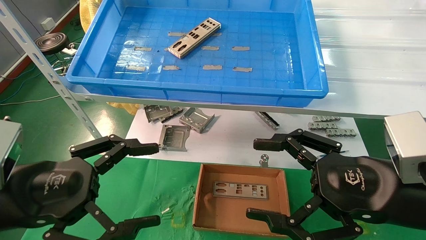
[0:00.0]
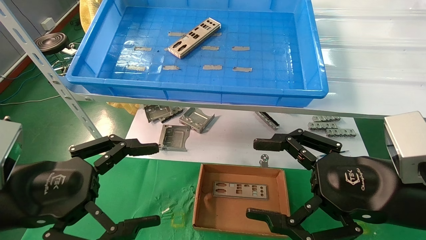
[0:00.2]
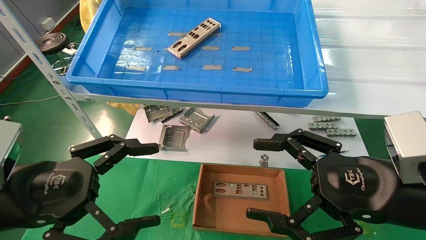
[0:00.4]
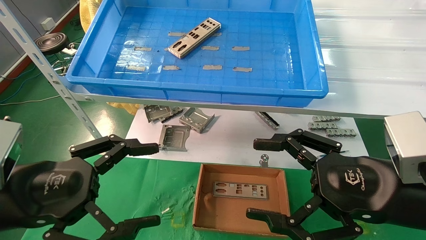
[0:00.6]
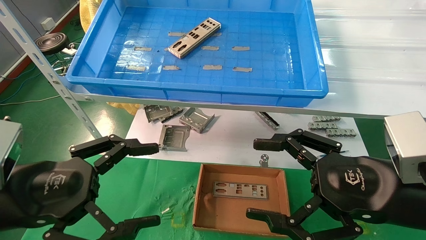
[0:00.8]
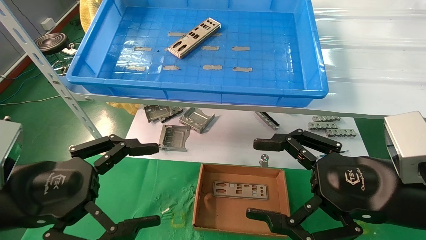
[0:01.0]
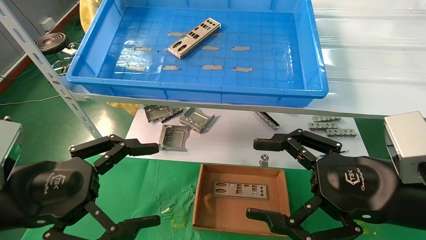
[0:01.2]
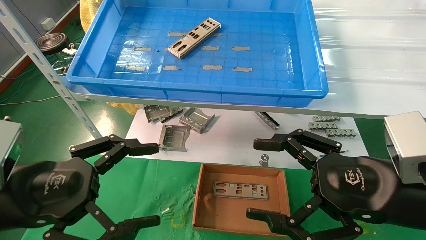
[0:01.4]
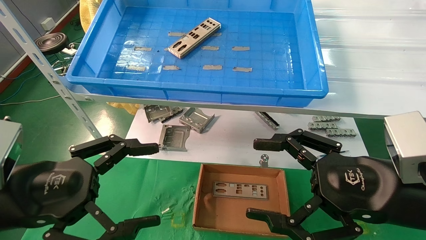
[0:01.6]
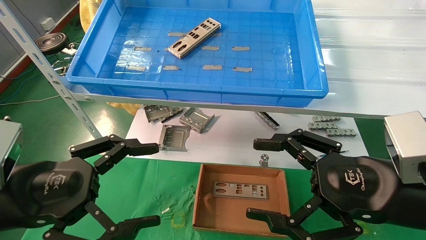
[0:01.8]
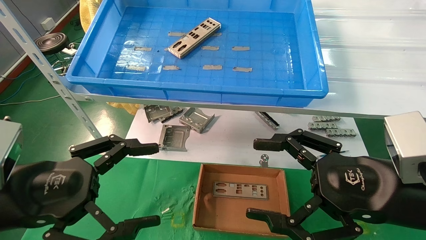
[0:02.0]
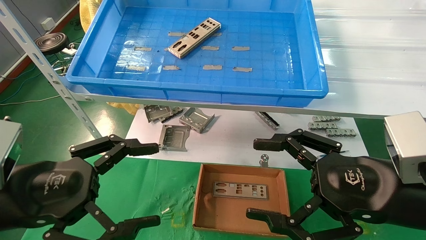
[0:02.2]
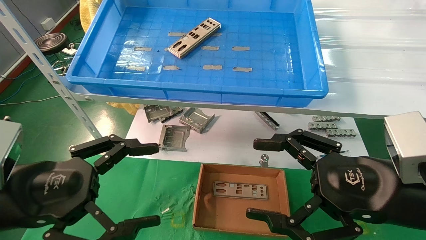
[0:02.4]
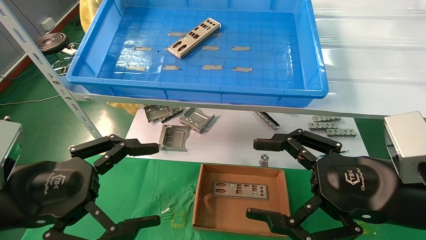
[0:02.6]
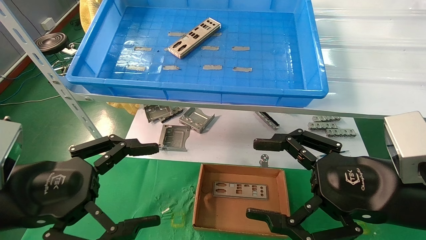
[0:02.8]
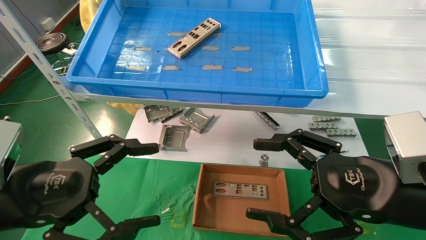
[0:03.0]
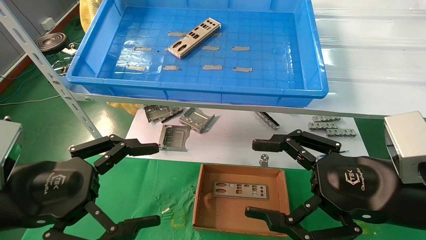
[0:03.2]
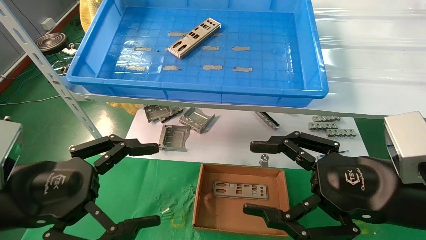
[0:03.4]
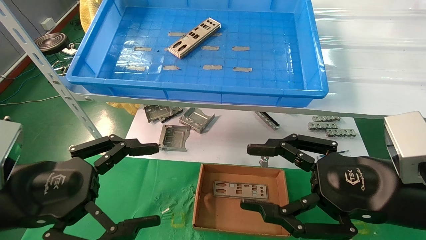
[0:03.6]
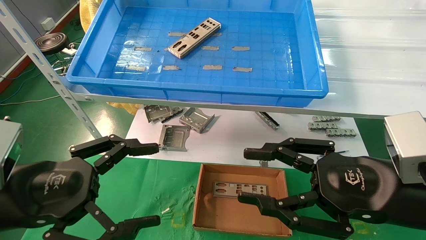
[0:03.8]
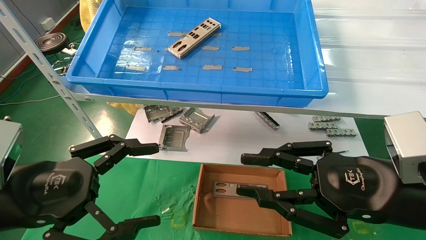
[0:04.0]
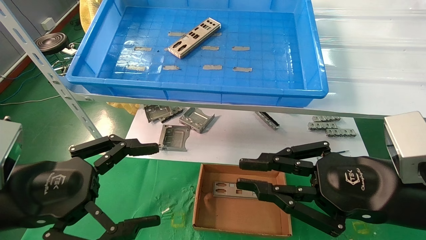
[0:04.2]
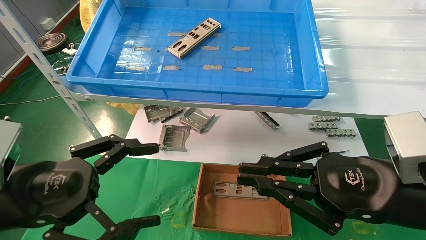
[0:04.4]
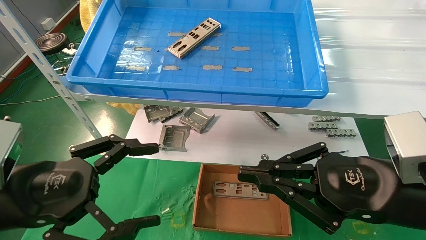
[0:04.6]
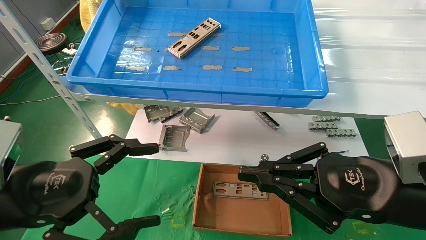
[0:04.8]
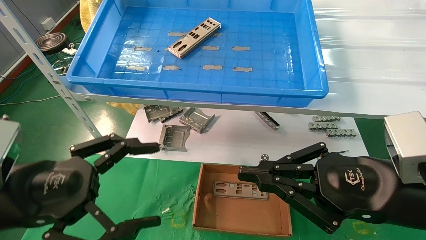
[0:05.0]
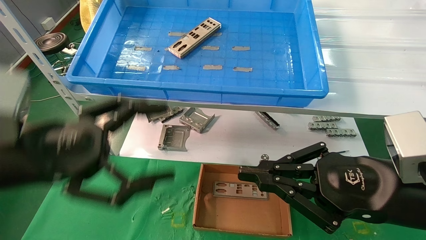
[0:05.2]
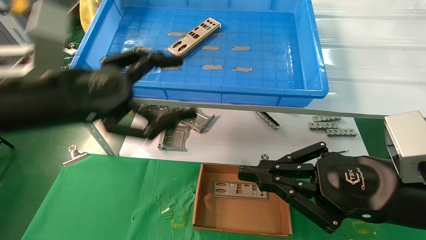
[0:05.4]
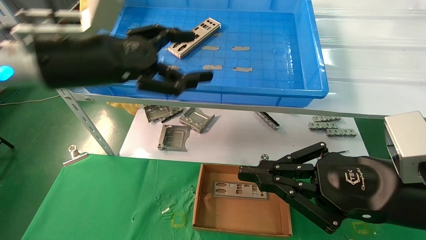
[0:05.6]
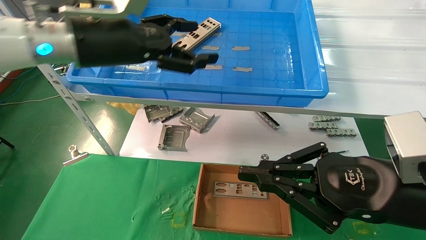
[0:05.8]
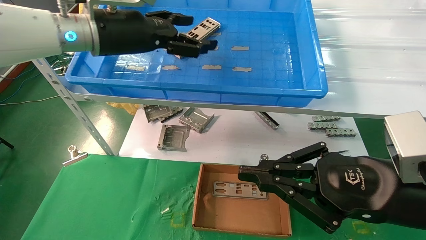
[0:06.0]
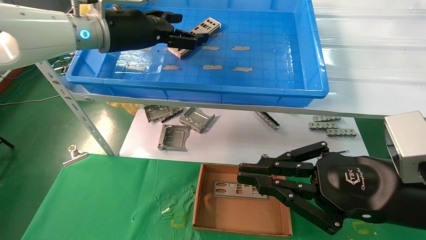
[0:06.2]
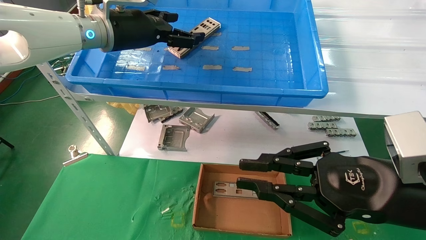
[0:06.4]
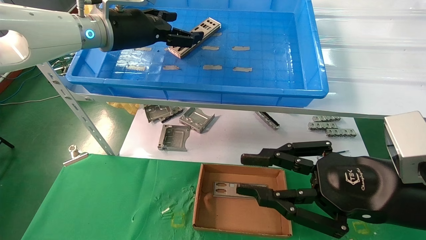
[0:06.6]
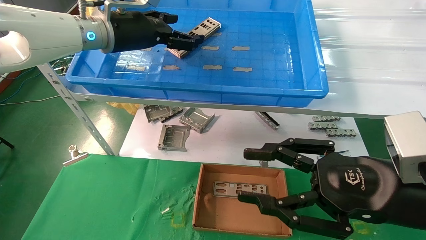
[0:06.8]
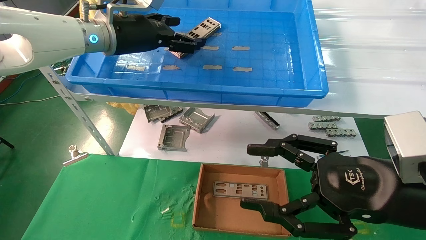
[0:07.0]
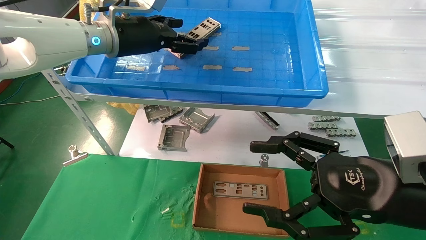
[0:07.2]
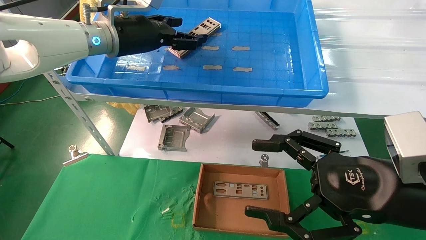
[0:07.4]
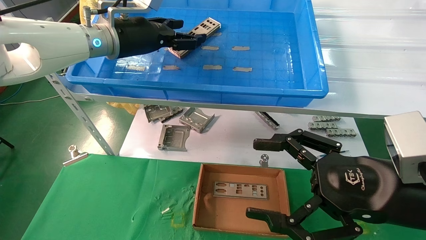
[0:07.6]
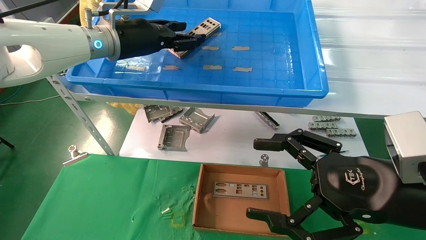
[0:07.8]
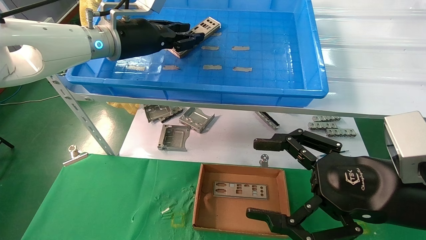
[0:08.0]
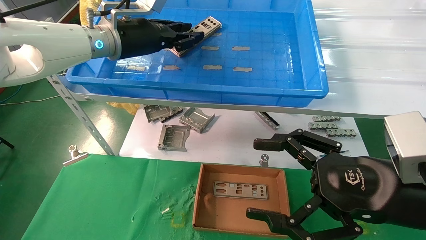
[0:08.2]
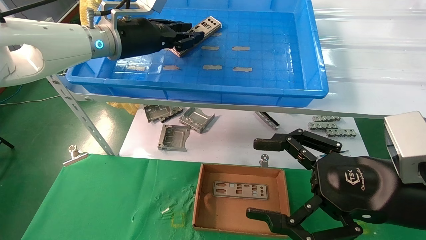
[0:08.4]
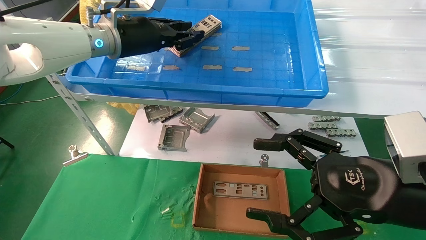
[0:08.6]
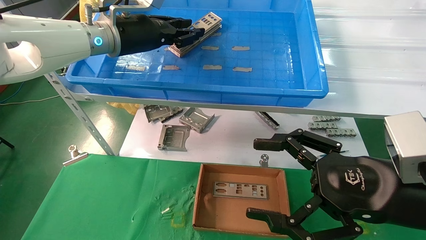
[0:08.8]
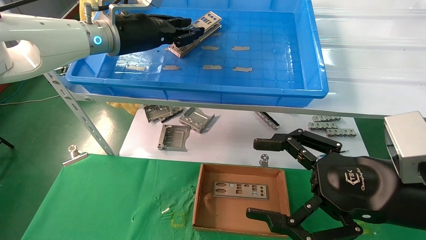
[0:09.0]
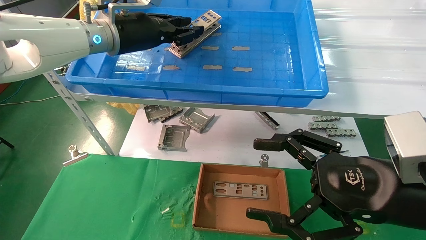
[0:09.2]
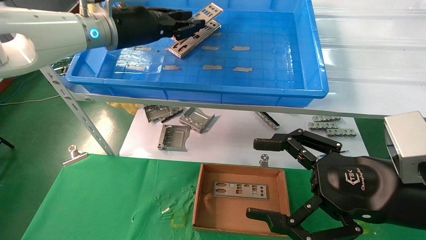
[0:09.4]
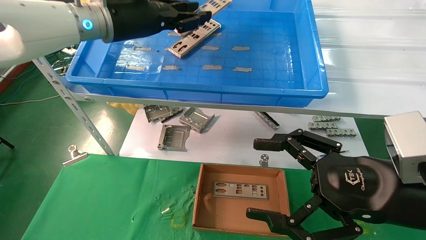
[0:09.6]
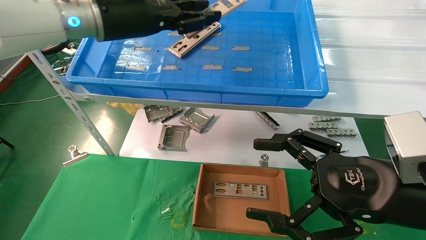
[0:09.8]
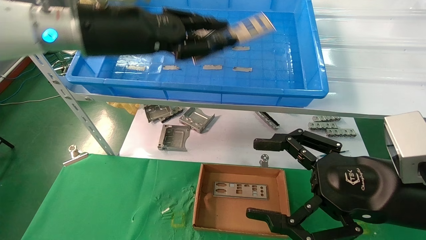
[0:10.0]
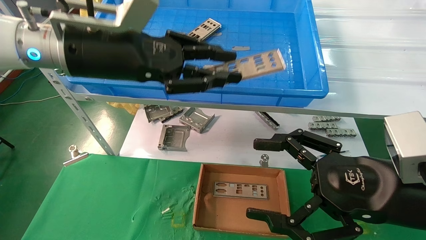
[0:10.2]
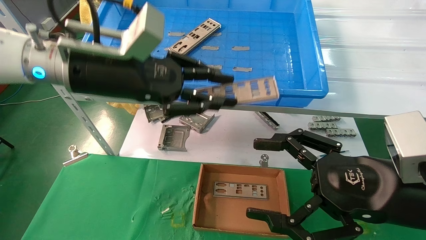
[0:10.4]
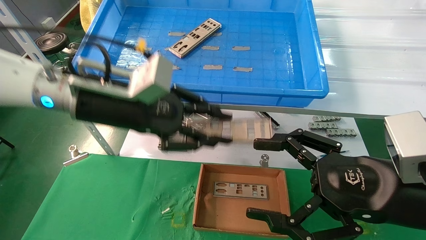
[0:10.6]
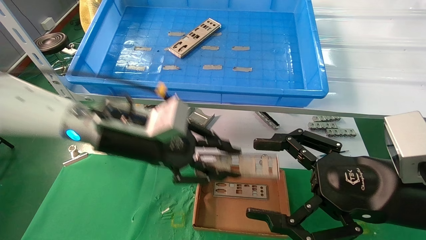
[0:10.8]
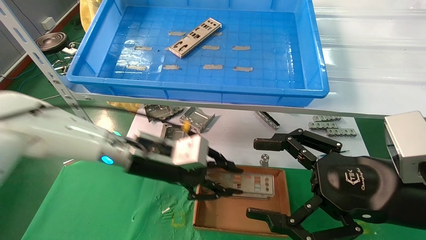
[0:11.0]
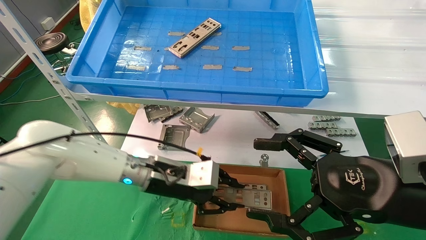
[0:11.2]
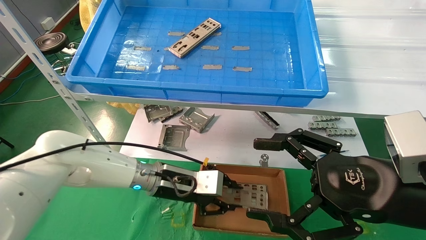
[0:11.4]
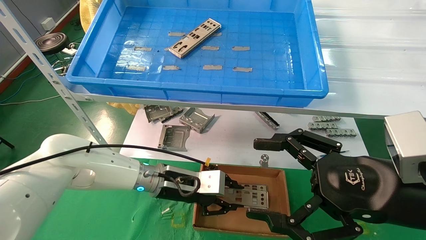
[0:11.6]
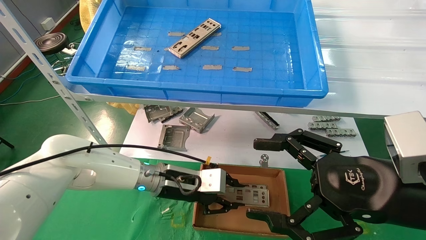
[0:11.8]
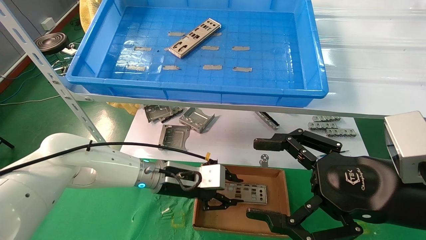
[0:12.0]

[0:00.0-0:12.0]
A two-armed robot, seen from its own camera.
Task of the whole recording: pick up the parts on the tray and put them in the cardboard box.
Step, 0:05.4 to 0:08.0: Pick up the IO bracket from the container box.
0:00.0 to 0:03.0: Both grippers stay put.
0:03.0 to 0:04.4: The right gripper closes up.
0:04.4 to 0:06.0: The left gripper is displaced forward, upward and to the right by approximately 30 cm.
0:06.0 to 0:07.6: The right gripper opens its fingers.
0:07.6 to 0:09.0: The left gripper closes.
0:09.0 to 0:10.4: The left gripper is displaced backward and downward by about 10 cm.
0:10.4 to 0:12.0: The left gripper goes some 25 cm downward.

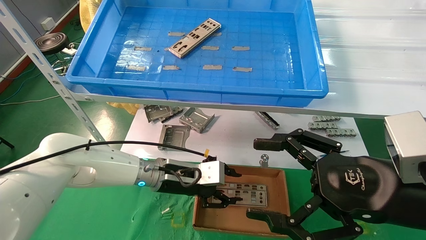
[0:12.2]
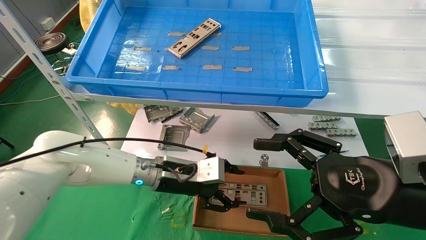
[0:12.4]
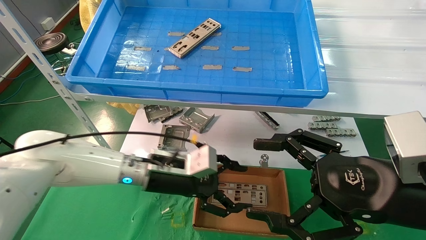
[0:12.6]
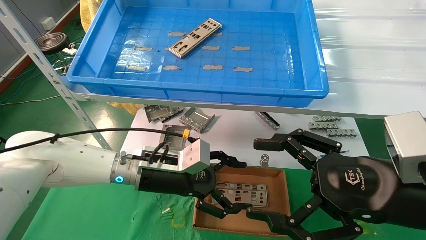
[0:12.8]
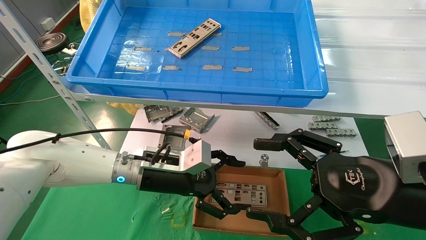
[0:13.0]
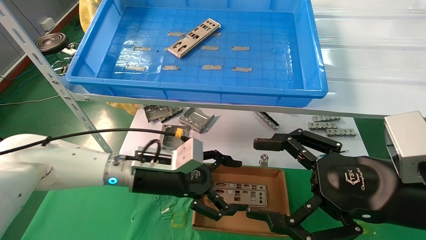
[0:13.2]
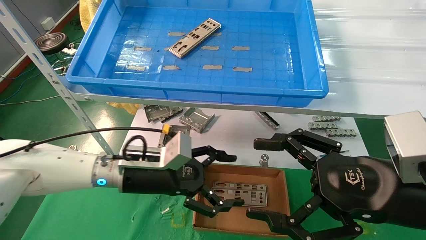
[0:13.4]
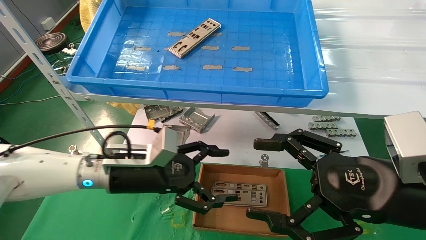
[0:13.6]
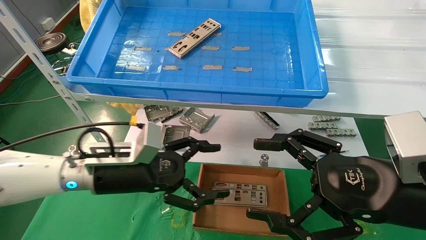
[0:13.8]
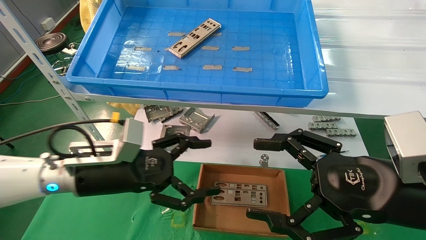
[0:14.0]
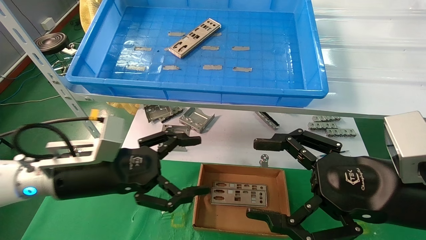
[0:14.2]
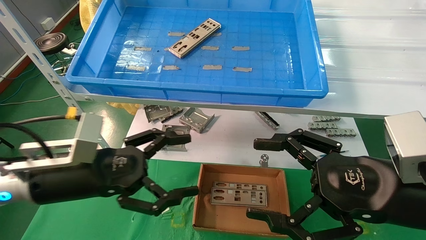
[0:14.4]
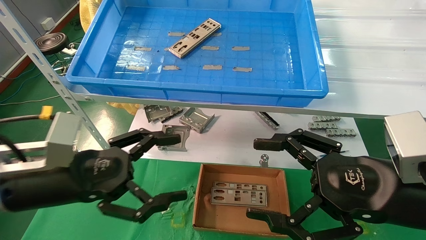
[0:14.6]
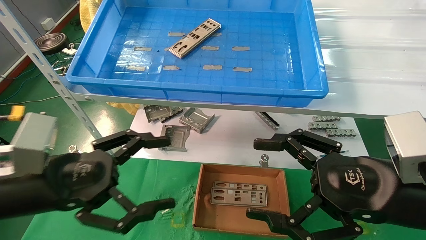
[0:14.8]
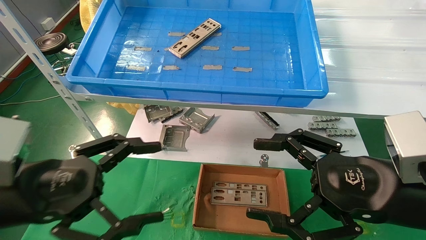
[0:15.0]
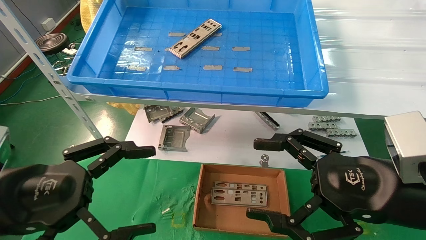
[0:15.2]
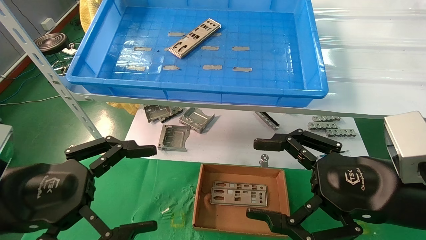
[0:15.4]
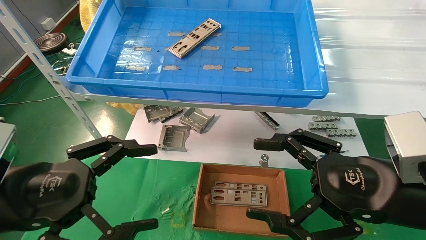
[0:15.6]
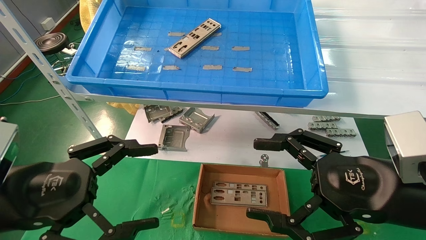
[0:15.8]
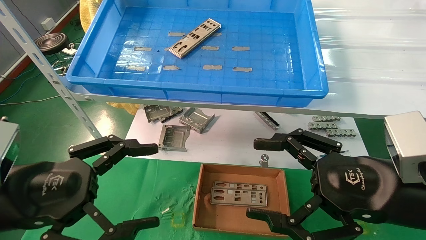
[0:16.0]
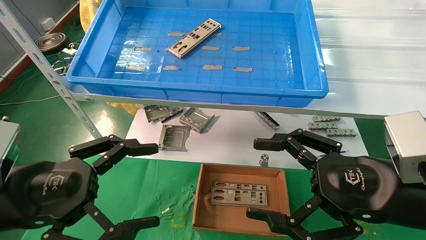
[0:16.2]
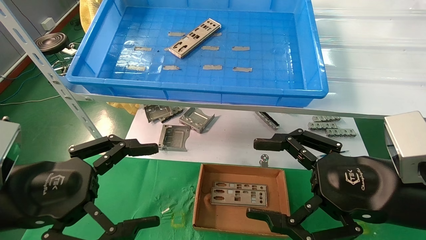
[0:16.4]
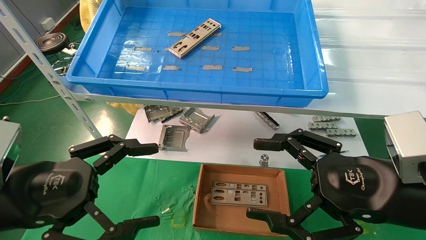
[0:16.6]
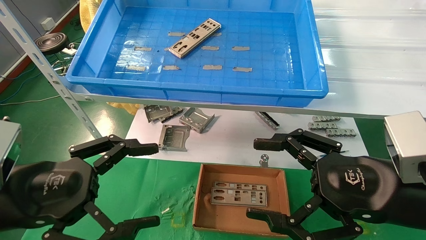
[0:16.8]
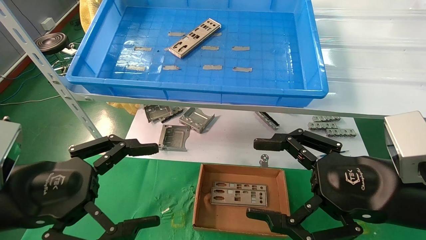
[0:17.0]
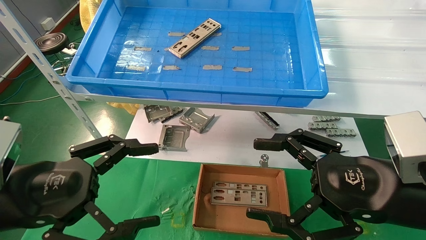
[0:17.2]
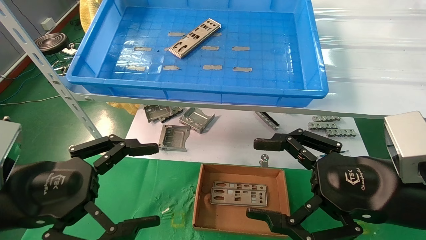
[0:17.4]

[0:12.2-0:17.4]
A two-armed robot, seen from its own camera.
Task of the whole recording: pick up the parts on the tray and put them in the cardboard box.
0:12.2 to 0:14.0: The left gripper is displaced to the left, backward and upward by some 15 cm, and opens up.
0:14.0 to 0:15.6: The left gripper travels backward and to the left by approximately 15 cm.
0:15.6 to 0:17.4: Neither gripper changes place.
